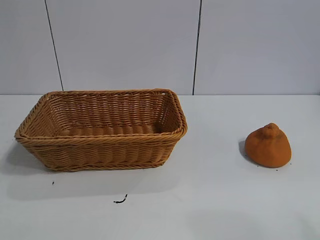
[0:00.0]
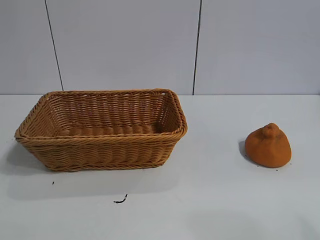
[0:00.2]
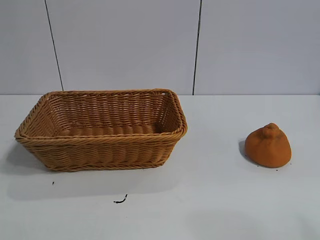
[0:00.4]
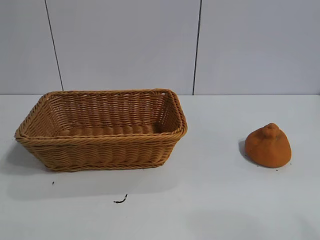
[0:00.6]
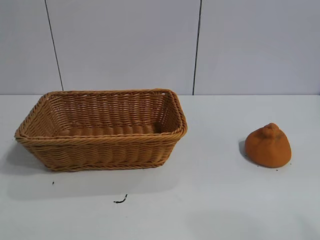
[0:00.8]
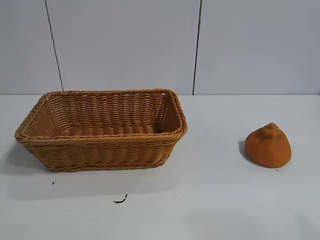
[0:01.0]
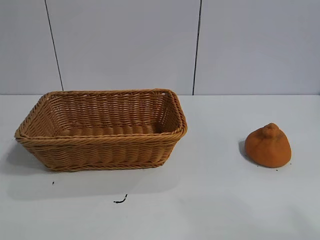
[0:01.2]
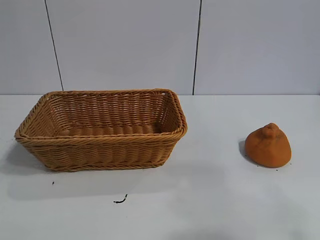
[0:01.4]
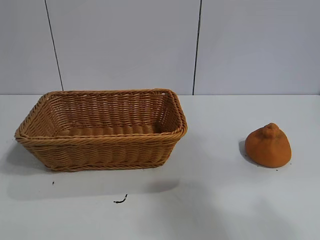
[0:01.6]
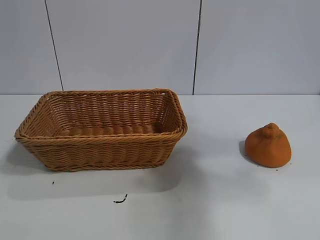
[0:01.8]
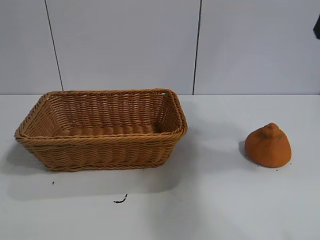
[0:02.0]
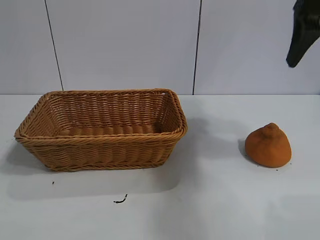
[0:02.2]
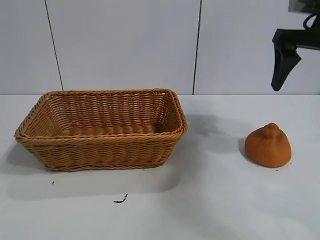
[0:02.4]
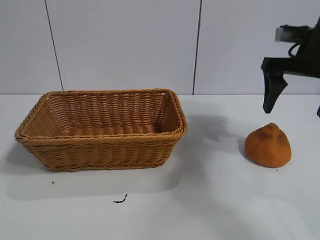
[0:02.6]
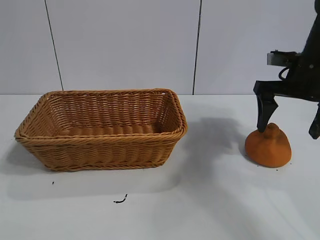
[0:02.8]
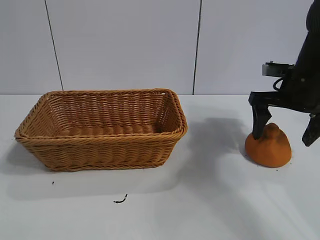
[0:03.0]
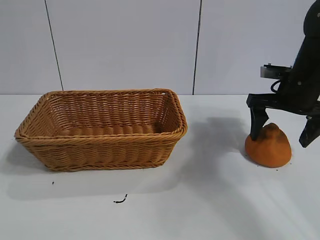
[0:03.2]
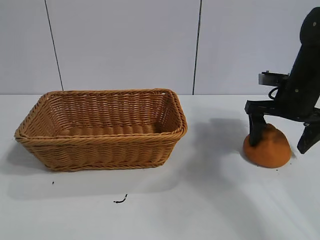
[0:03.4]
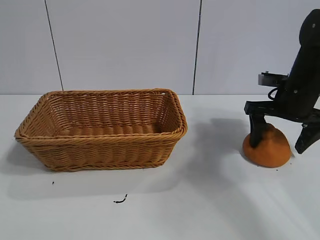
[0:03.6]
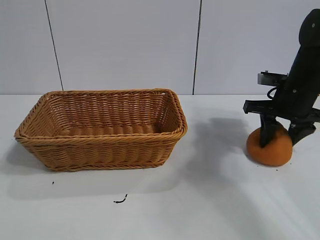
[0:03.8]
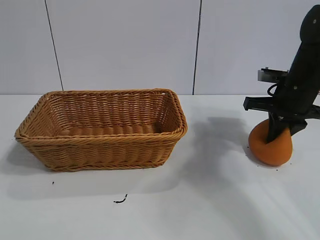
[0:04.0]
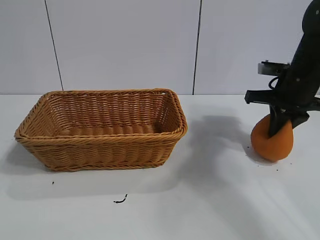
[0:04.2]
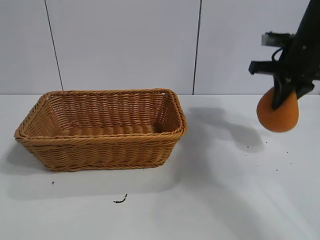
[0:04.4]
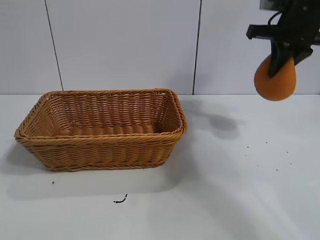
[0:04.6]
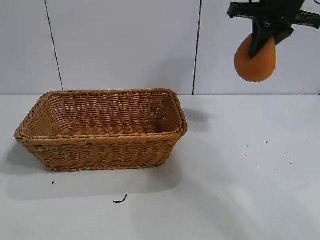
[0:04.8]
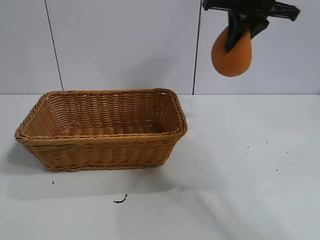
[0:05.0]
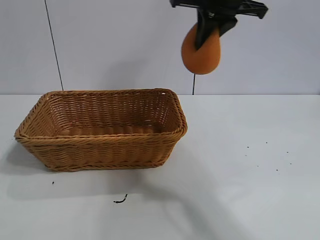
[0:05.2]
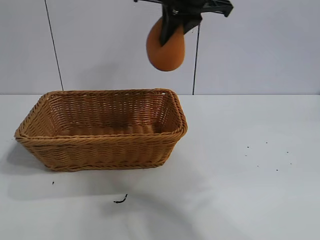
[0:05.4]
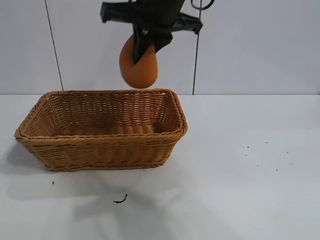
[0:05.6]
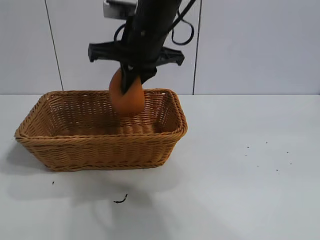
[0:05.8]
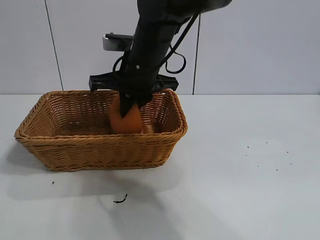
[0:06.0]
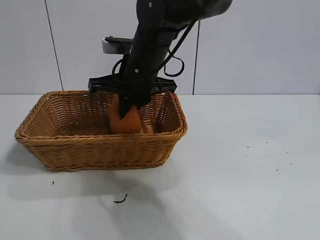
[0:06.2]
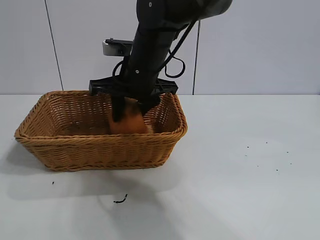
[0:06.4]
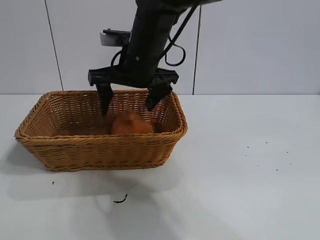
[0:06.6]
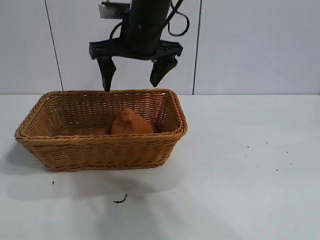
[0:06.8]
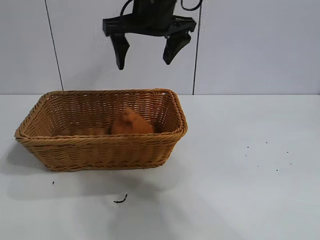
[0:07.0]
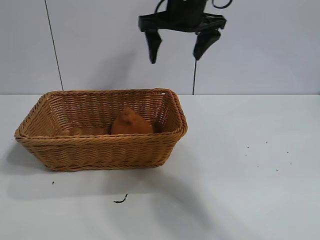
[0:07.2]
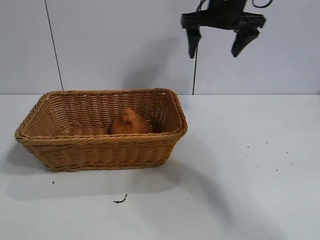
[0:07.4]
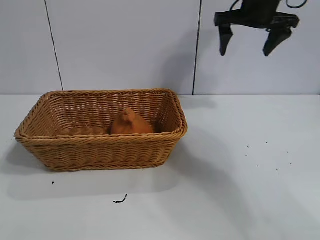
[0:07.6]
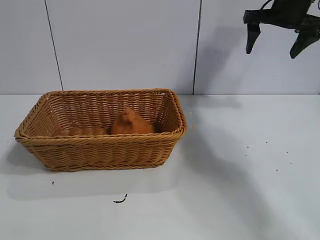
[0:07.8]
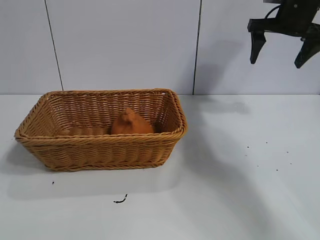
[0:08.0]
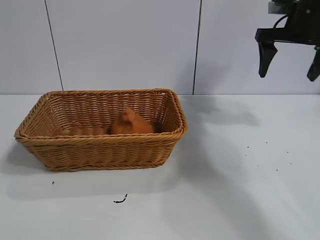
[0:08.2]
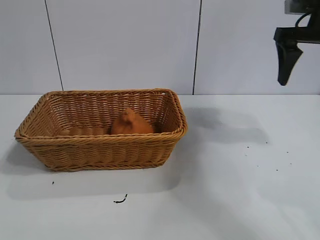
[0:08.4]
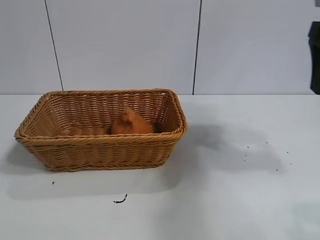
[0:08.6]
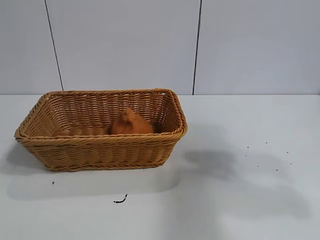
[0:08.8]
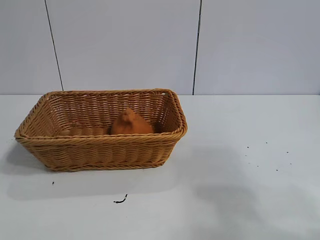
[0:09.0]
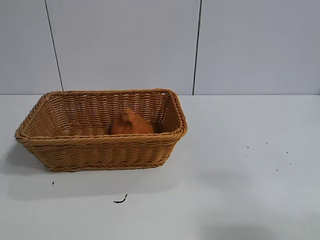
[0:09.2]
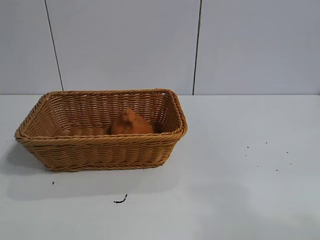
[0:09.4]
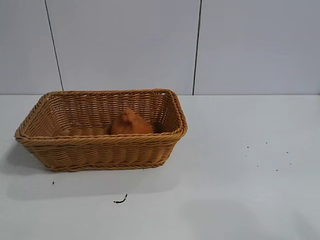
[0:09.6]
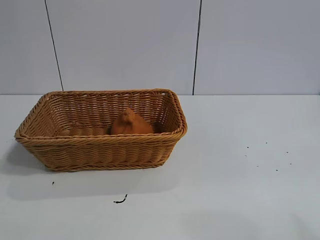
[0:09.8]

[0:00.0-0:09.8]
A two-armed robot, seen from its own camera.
Task of the whole recording: pick up the orange and put it into the basket.
Step, 0:01.0 to 0:04.0: Grasp the orange with right gripper.
Step, 0:04.2 to 0:06.4: Place the orange in the basket with right gripper.

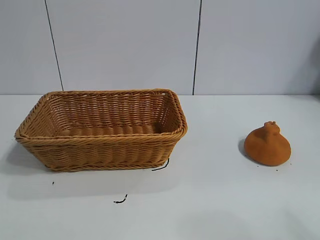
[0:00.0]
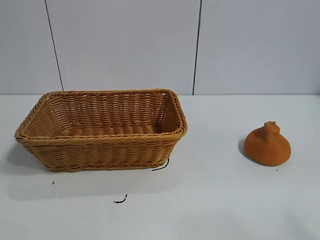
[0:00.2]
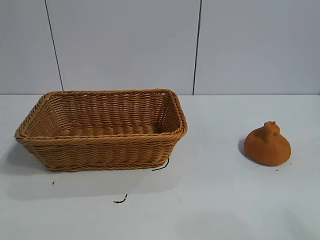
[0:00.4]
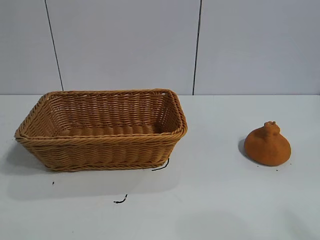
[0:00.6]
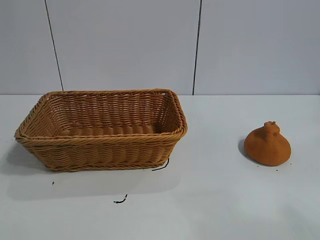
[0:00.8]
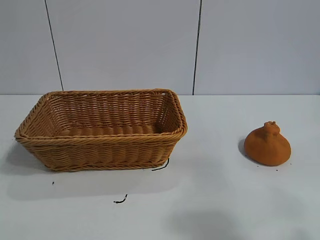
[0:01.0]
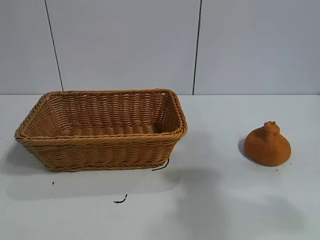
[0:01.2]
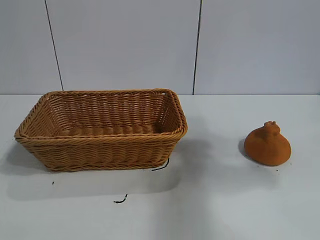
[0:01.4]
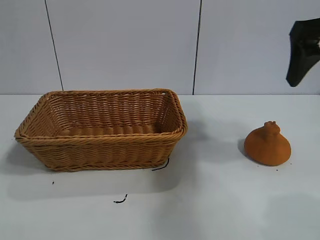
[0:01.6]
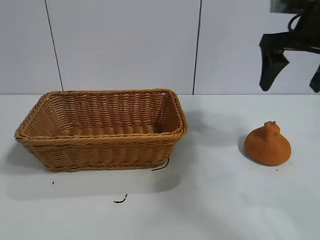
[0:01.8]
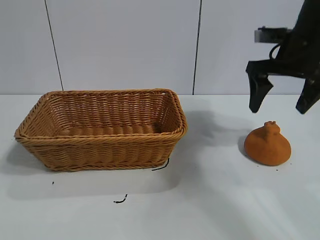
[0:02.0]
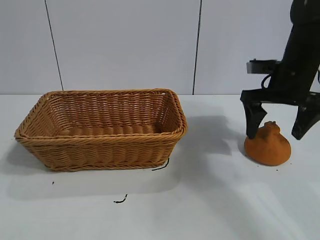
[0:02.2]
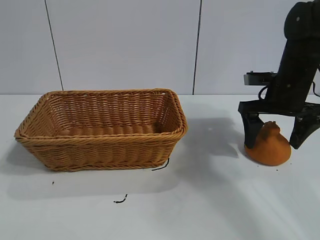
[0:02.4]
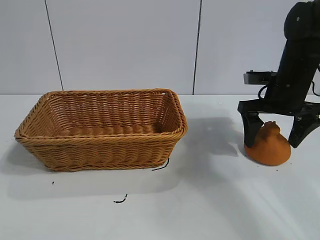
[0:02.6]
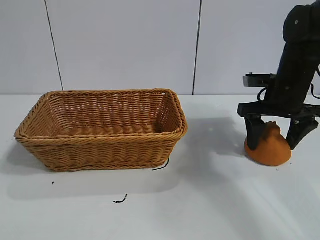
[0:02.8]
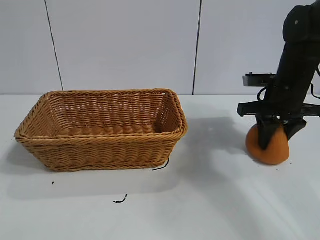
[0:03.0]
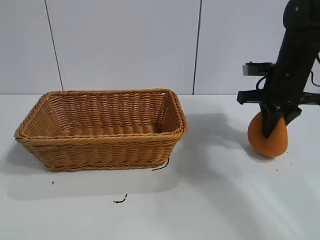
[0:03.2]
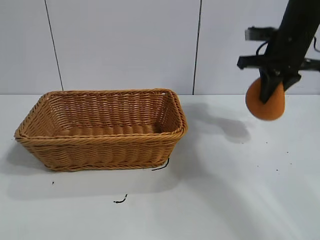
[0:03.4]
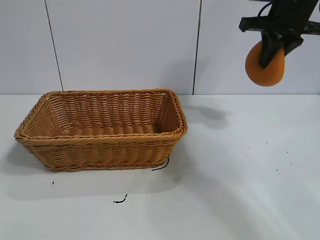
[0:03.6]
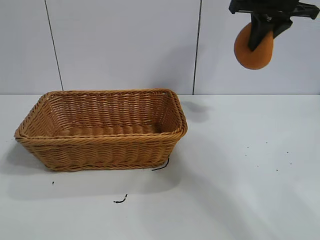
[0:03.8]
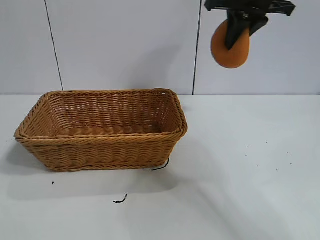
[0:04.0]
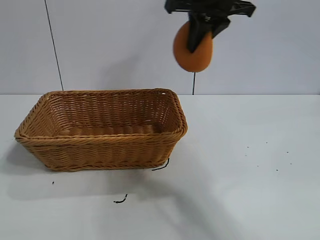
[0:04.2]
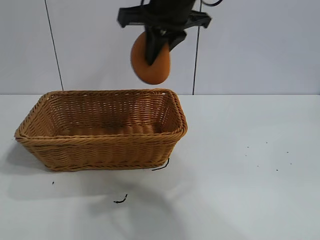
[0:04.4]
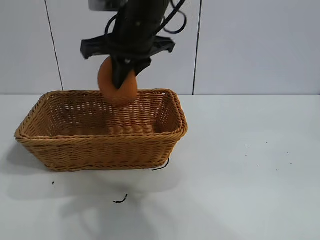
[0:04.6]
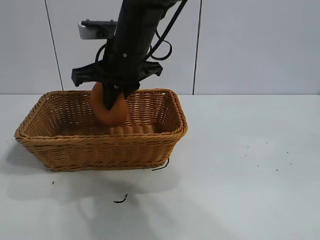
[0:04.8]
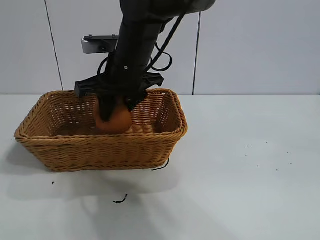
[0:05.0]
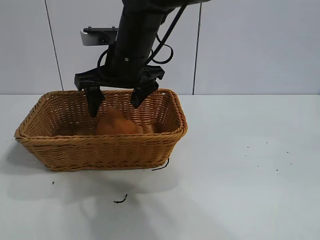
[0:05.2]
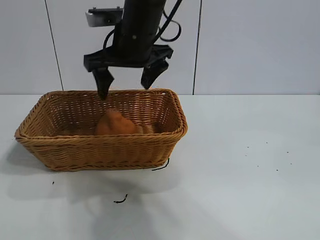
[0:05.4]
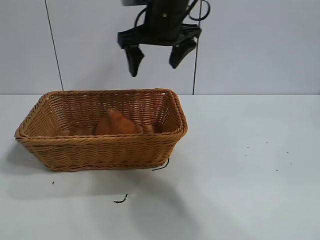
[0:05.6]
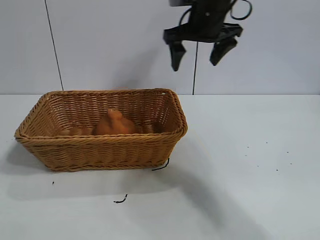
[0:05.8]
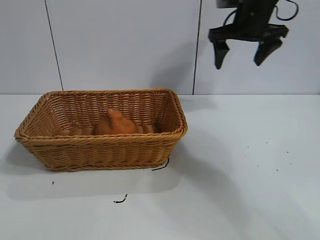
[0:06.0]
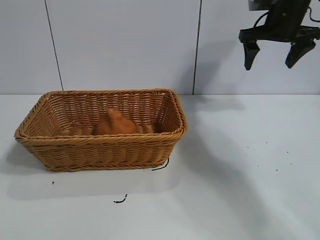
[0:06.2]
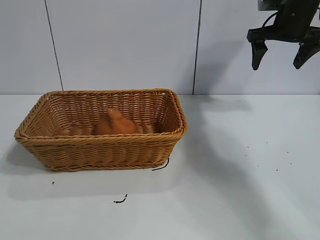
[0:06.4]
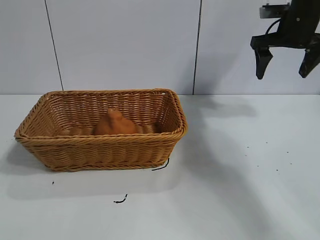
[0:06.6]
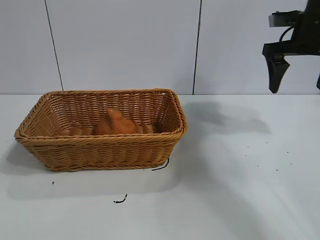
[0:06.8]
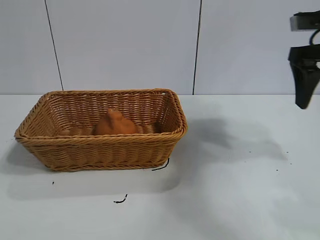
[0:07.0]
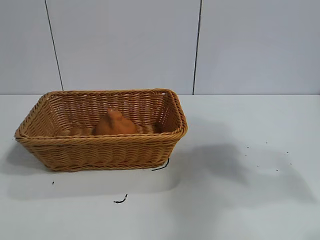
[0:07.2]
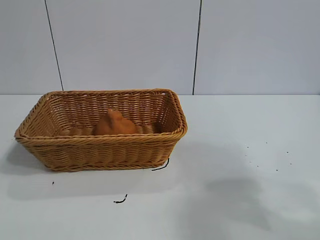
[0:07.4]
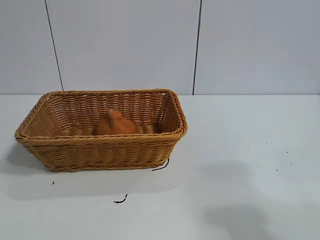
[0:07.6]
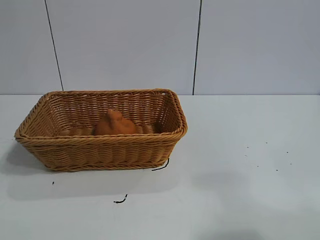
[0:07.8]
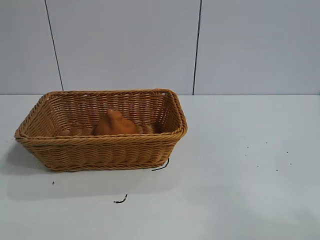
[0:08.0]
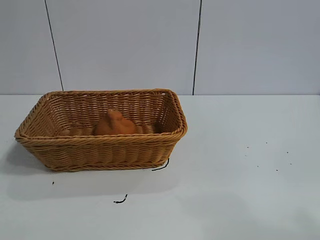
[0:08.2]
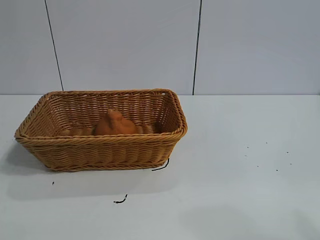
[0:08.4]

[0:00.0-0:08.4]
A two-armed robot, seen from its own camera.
Task of the whole recording: pick up the orange and put it into the basket.
Step, 0:00.6 to 0:03.2: Grasp the orange with right gripper.
Step, 0:03.4 to 0:05.0: Place the orange in the basket with right gripper.
